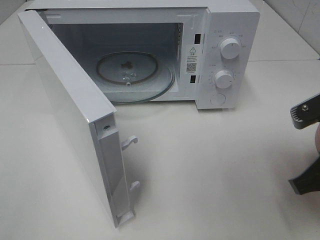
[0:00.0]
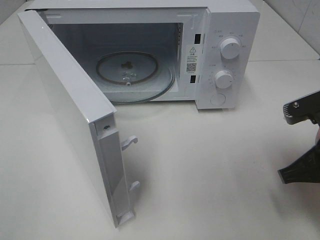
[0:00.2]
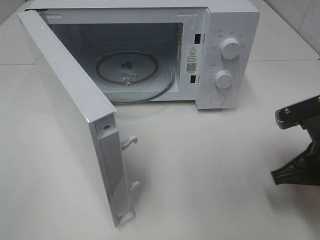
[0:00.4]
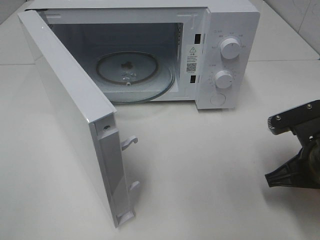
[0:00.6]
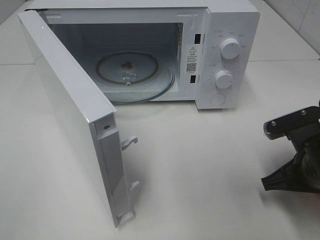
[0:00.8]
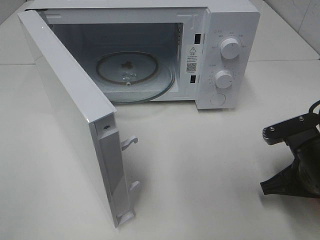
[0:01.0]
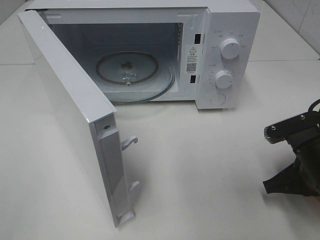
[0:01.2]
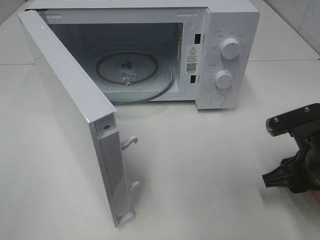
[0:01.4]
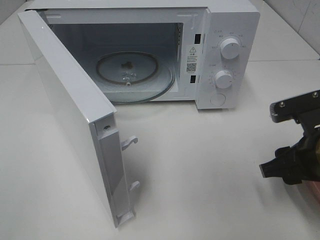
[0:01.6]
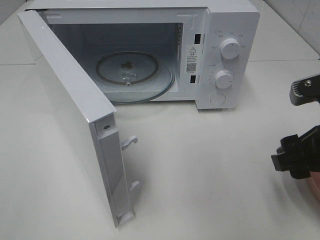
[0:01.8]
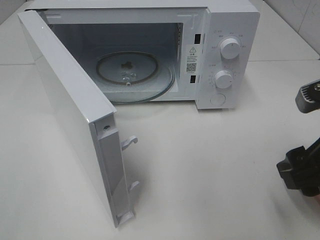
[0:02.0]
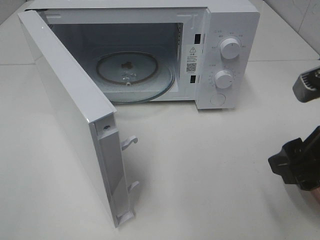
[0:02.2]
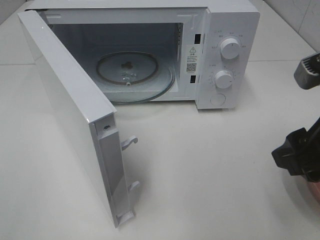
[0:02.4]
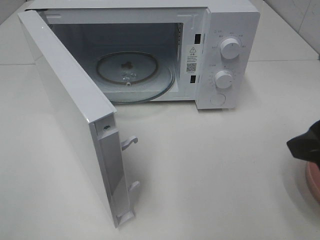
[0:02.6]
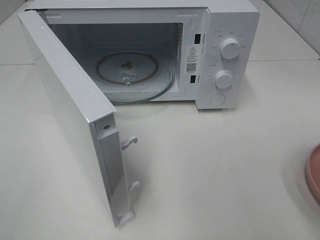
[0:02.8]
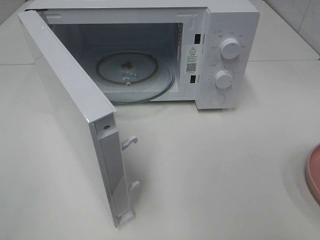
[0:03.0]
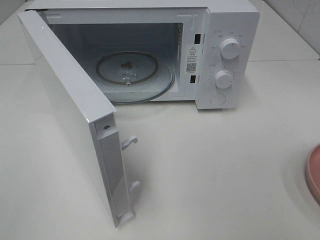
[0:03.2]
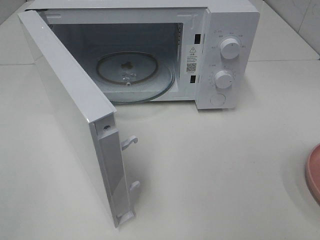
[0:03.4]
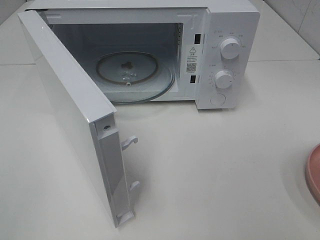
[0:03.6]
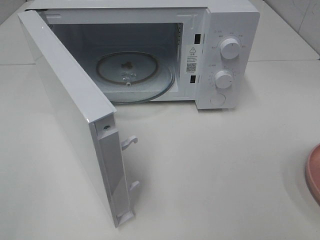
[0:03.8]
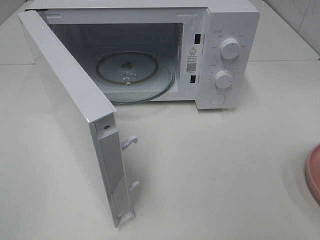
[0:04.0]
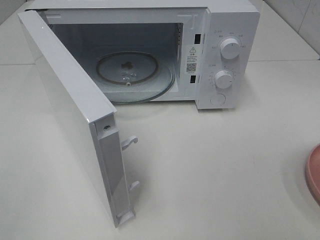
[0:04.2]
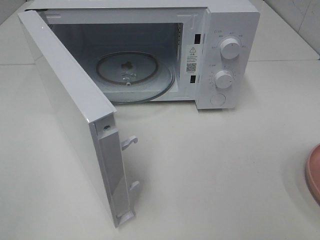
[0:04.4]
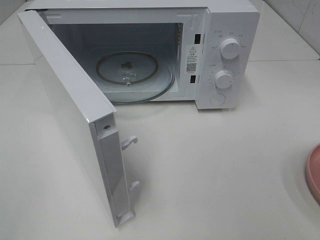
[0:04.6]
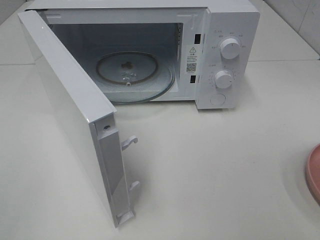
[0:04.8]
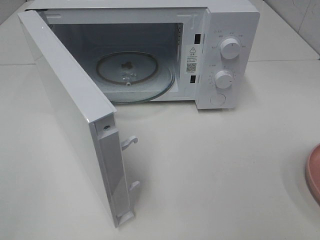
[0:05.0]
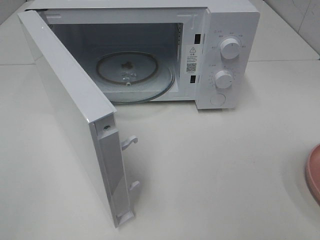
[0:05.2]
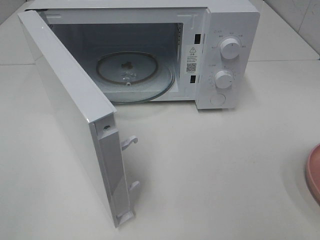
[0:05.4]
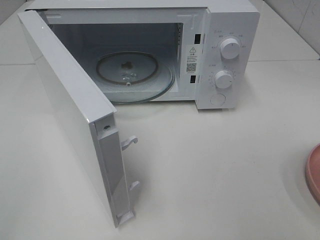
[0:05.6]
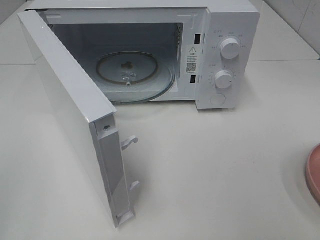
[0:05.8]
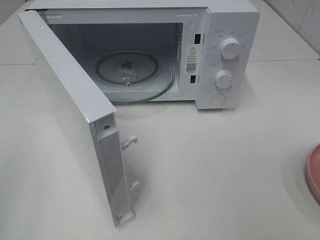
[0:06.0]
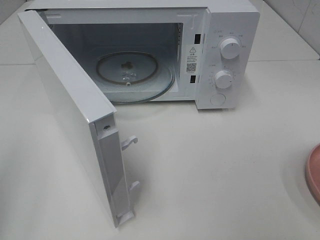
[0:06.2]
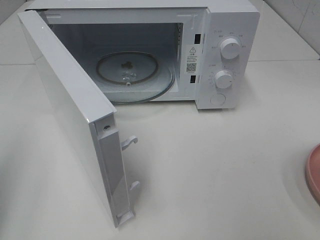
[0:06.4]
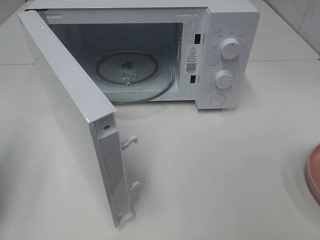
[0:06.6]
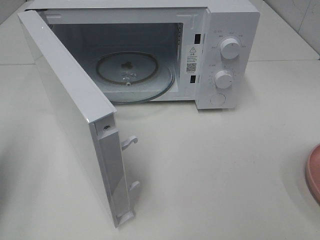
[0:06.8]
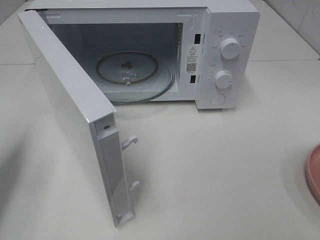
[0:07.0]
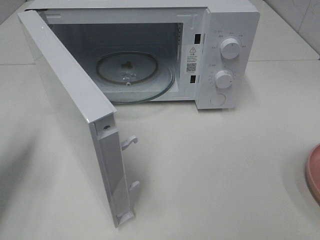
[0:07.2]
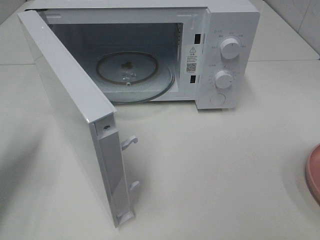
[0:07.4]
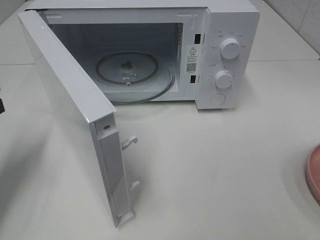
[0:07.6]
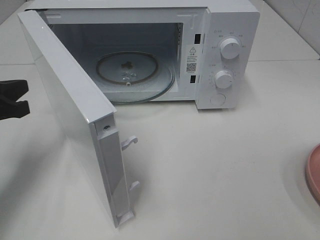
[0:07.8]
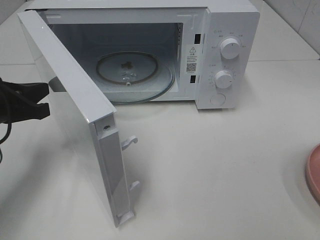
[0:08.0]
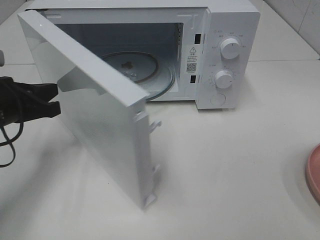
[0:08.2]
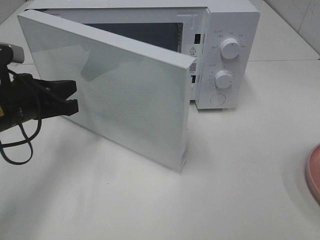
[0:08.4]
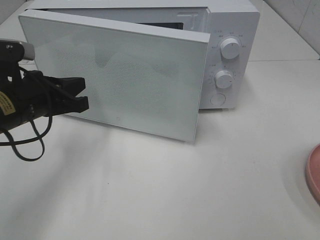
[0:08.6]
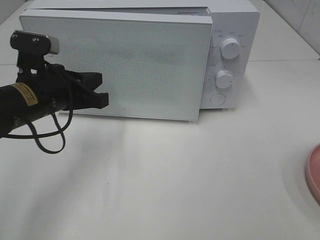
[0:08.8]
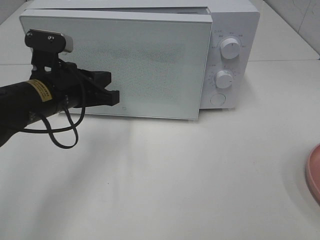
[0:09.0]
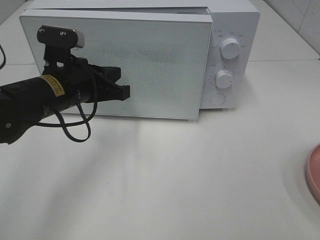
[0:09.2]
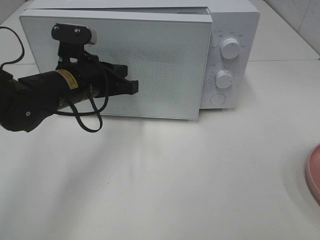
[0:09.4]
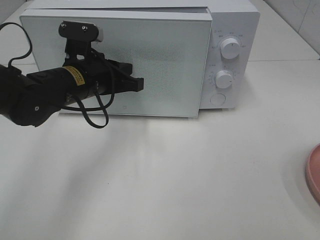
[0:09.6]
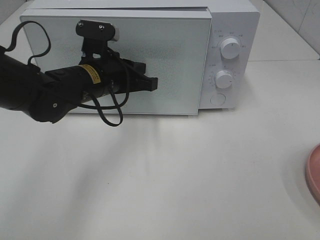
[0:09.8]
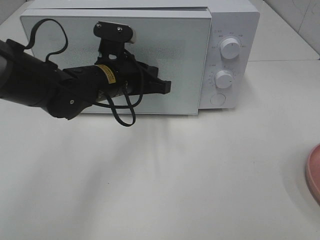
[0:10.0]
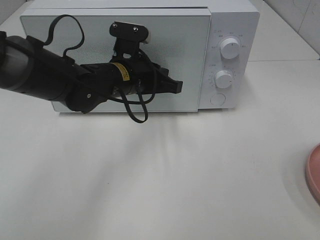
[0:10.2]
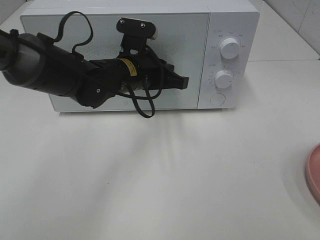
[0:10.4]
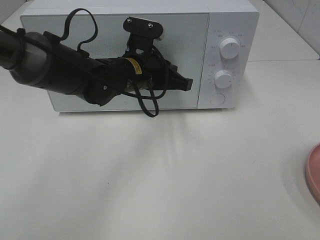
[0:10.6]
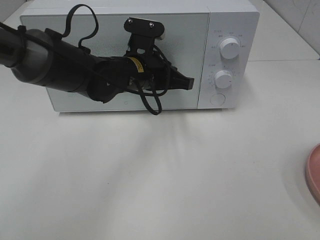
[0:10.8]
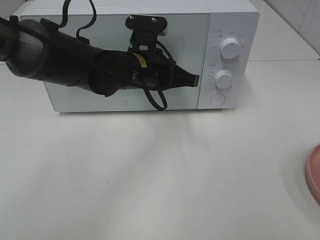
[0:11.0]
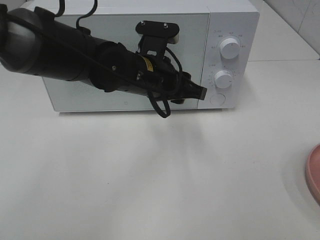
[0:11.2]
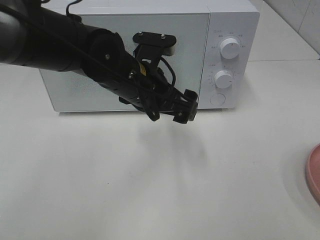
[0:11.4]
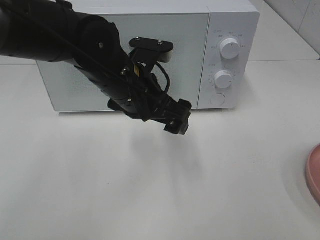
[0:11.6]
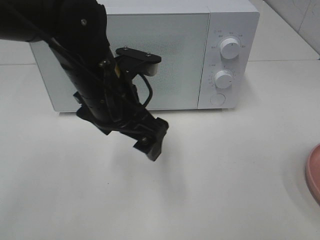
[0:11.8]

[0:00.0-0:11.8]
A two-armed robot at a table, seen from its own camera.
Task of the whole recording: Heat the burger.
Step, 1.4 to 10.4 s: Left hand: close the microwave door.
0.0 to 1.4 s: The right gripper is displaced downward by roughly 5 cm, and opens up.
1.4 to 3.0 s: The right gripper goes roughly 25 cm upward and backward.
6.0 to 7.4 s: The left gripper shifts roughly 20 cm forward and downward.
7.4 to 8.8 s: The left gripper travels to the right by about 15 cm.
8.8 to 10.4 s: The left gripper travels to the right and forward by roughly 15 cm.
10.4 to 11.8 s: The left gripper goes roughly 10 cm backward and upward, and opens its fingers.

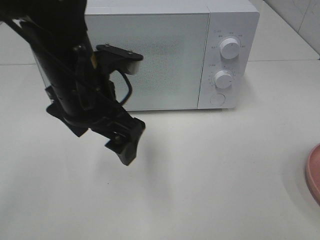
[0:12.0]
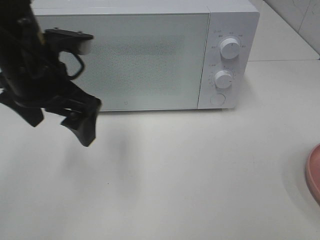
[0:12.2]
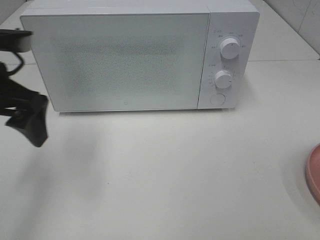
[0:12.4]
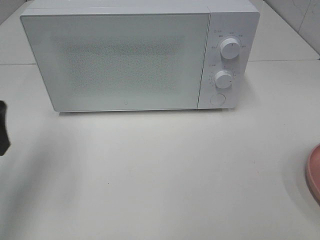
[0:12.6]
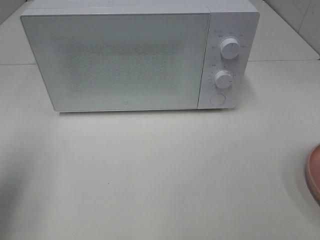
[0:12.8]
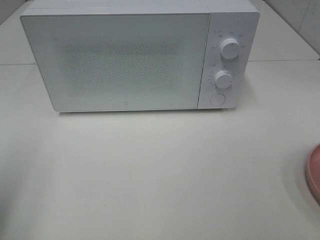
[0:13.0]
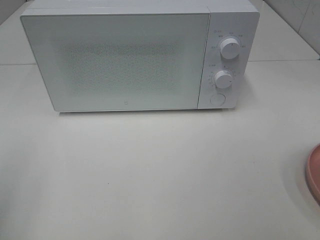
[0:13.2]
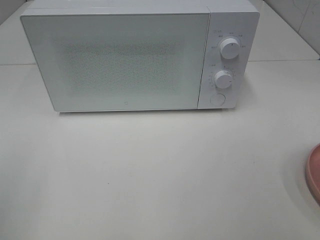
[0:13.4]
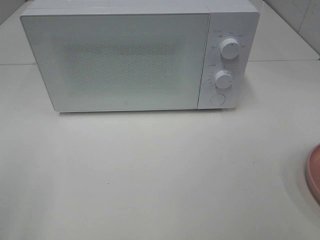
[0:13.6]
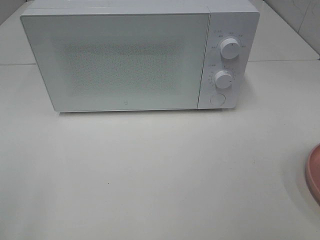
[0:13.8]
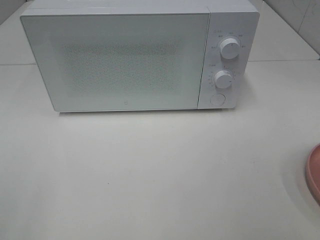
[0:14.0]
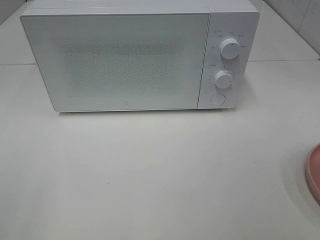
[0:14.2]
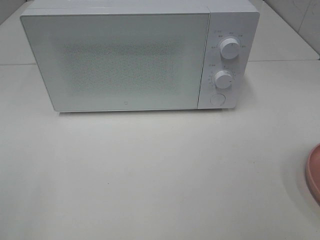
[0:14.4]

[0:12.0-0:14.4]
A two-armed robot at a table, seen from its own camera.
Task of the whole recording: Heat the burger.
12.0 to 13.2 s: The left gripper is displaced to the left and backward by approximately 30 cm.

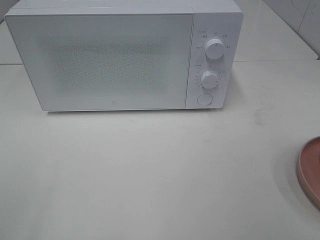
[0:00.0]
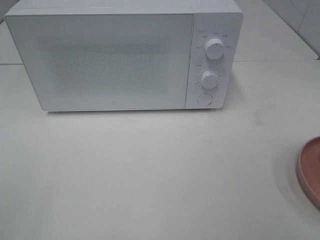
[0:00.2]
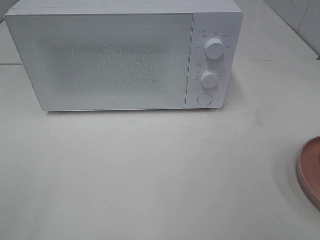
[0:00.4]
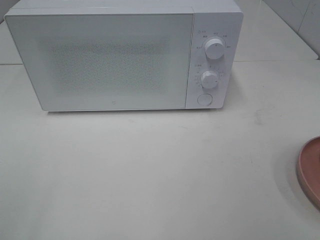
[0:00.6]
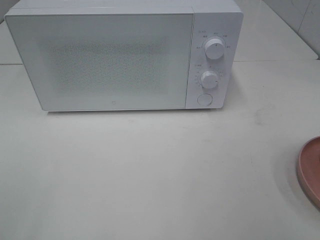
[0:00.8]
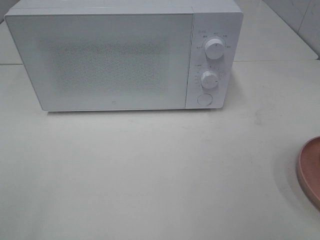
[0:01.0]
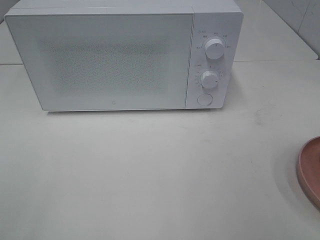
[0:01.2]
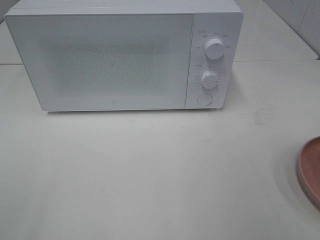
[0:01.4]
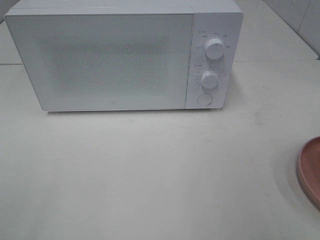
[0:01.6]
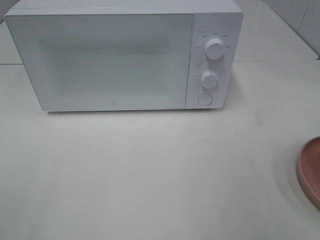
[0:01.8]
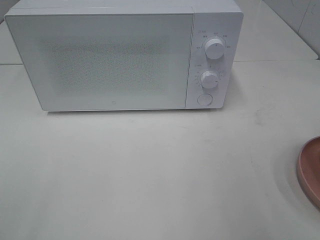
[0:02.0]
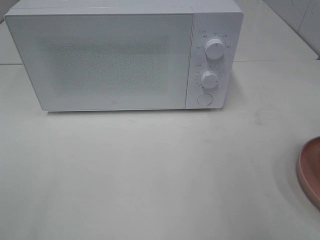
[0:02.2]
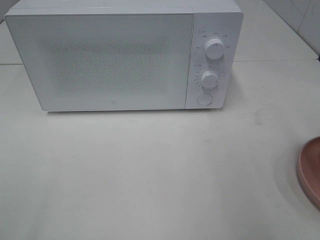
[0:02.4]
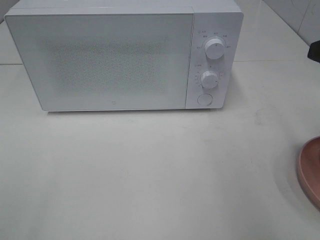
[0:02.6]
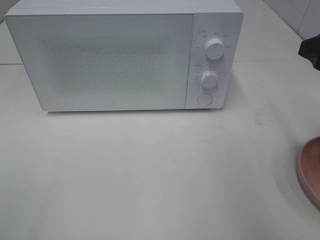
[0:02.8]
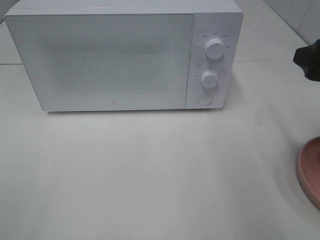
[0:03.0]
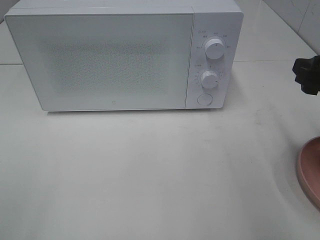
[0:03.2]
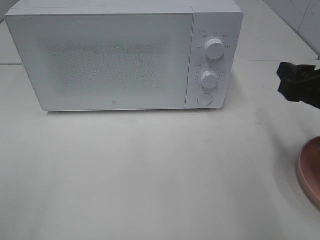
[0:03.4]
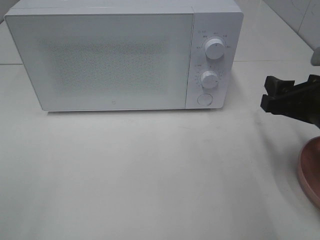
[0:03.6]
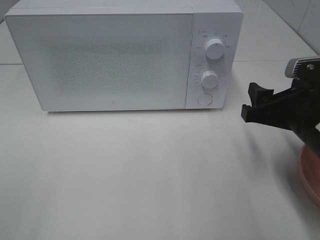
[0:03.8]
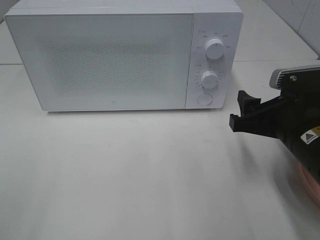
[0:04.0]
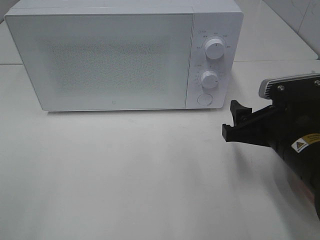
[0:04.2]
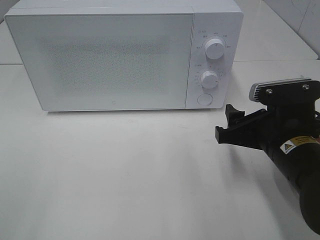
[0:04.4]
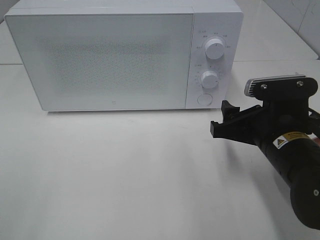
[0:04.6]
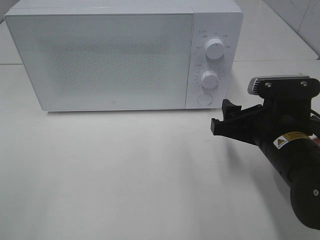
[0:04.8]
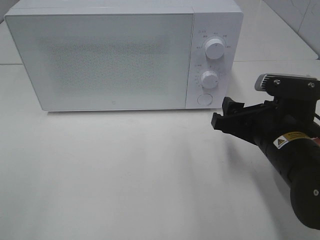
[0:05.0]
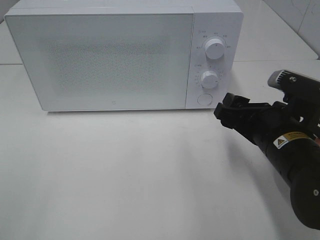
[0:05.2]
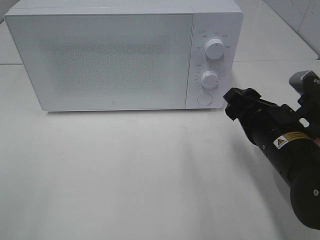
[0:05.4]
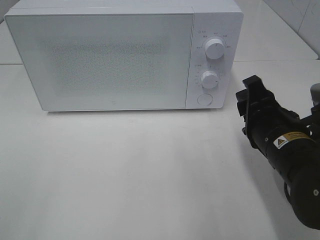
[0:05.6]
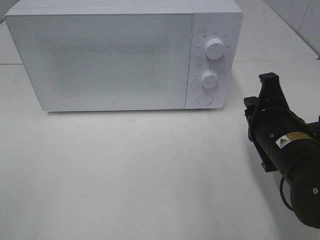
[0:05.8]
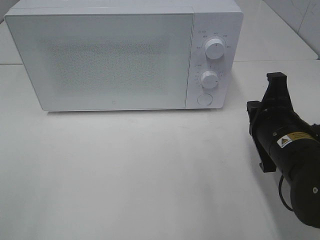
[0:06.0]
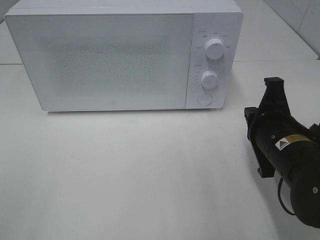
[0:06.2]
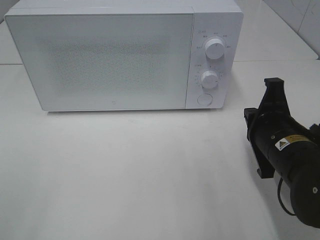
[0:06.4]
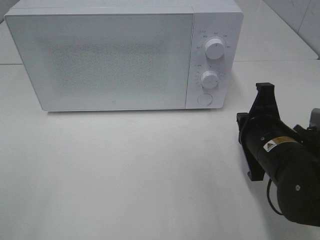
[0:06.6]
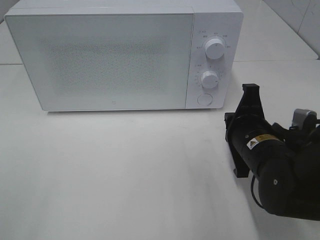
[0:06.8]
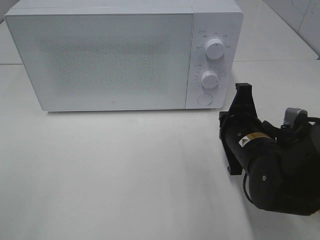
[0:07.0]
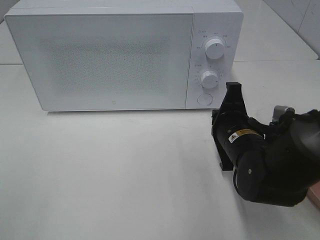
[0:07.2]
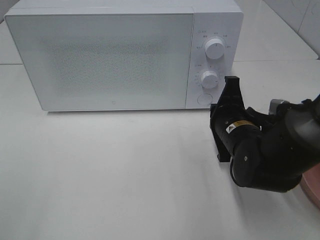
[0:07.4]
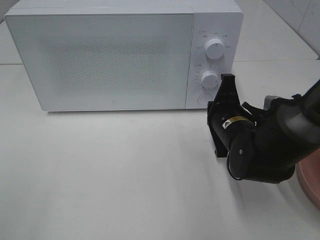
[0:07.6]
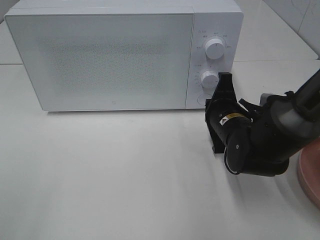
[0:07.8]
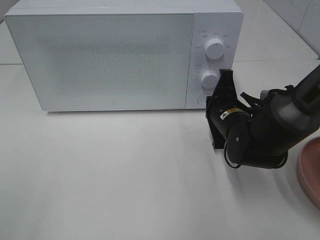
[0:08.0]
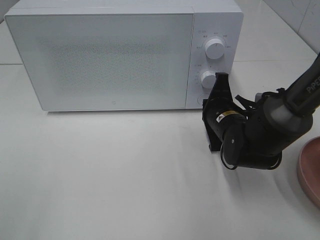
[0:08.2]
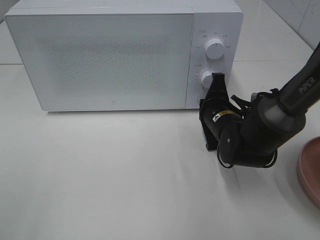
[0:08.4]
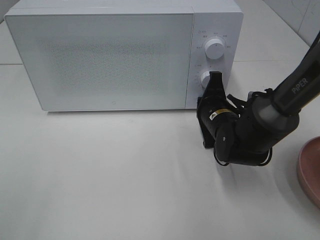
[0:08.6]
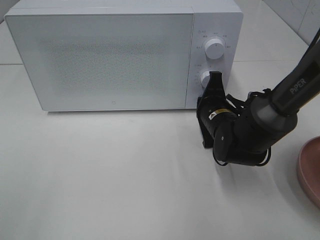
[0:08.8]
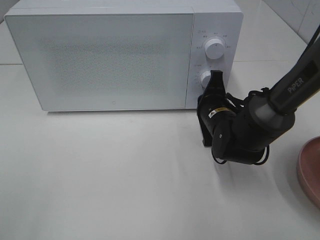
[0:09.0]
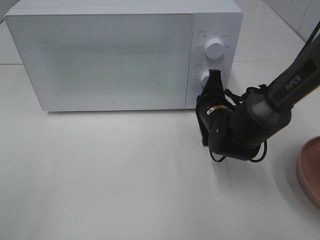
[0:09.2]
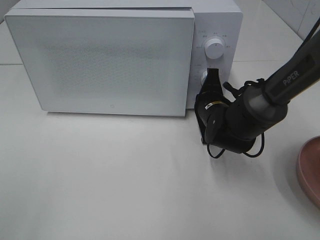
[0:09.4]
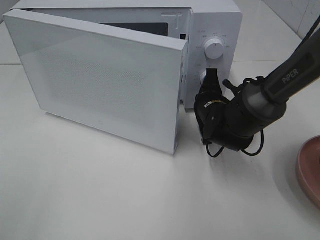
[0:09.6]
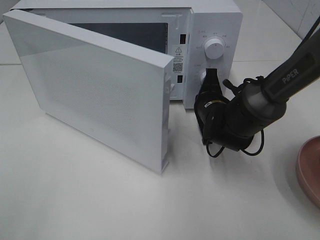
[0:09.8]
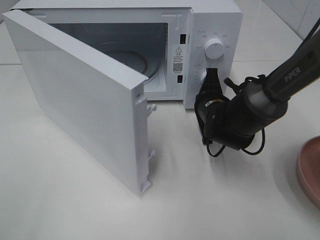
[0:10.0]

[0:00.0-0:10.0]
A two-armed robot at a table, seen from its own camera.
Task of the whole recording: Heat the burger.
1.4 to 2.8 s: The right gripper is displaced forward by roughly 15 cm.
2.8 to 4.2 s: The right gripper shifts approximately 15 cm downward and to the left.
4.2 to 5.8 s: The right gripper closes up.
5.8 to 7.2 s: The right gripper ends up some 5 cm from where it was.
7.2 to 8.6 s: The right gripper moves forward, some 10 cm.
